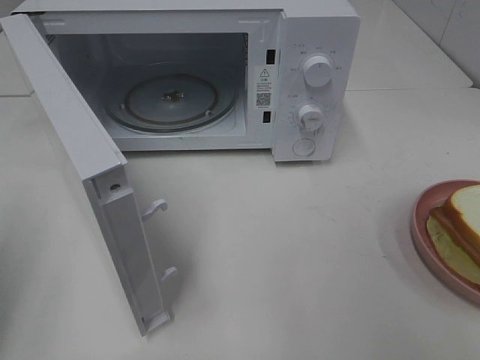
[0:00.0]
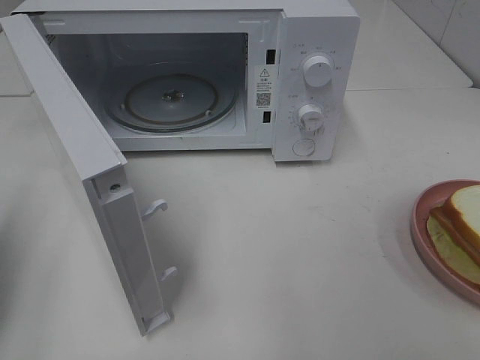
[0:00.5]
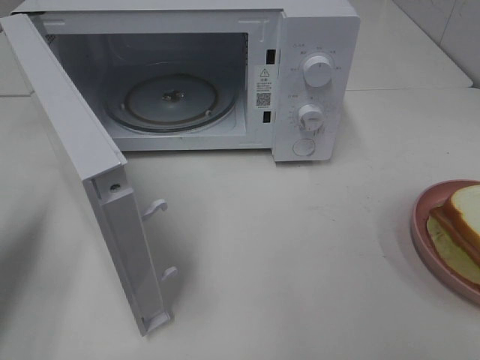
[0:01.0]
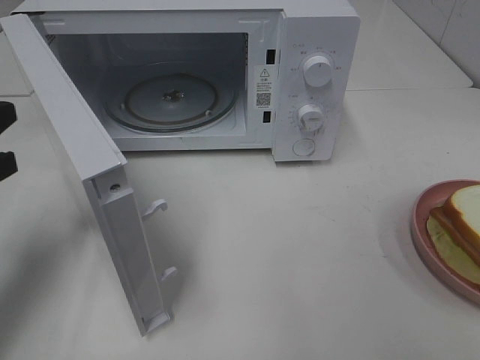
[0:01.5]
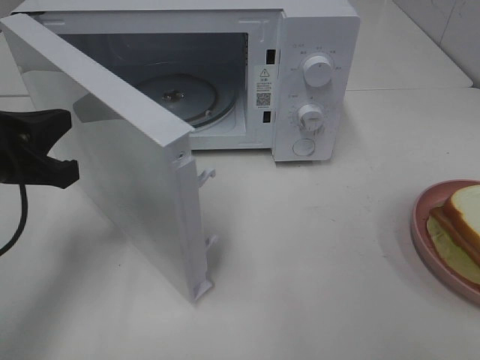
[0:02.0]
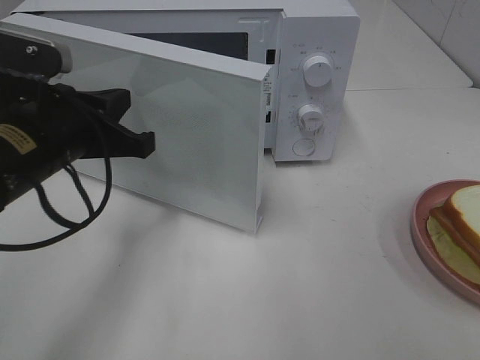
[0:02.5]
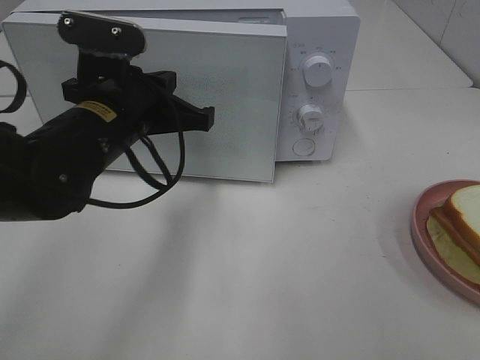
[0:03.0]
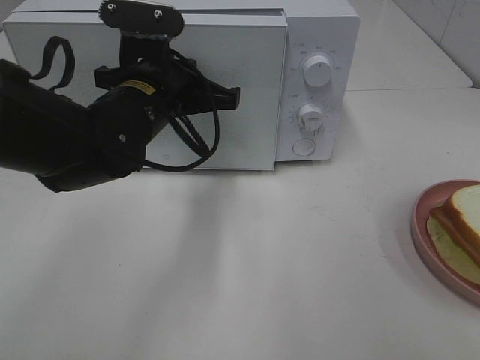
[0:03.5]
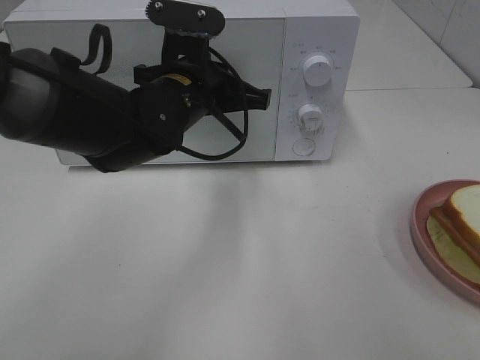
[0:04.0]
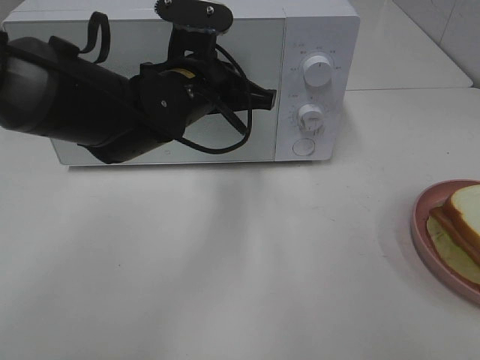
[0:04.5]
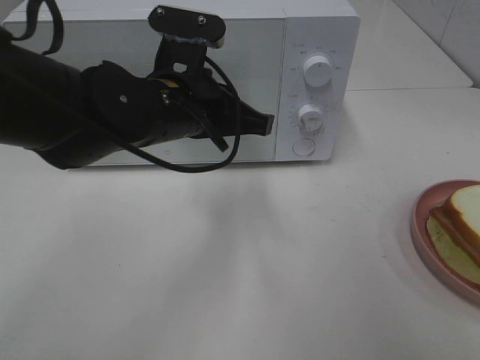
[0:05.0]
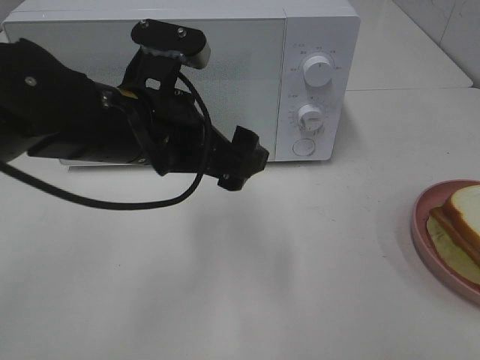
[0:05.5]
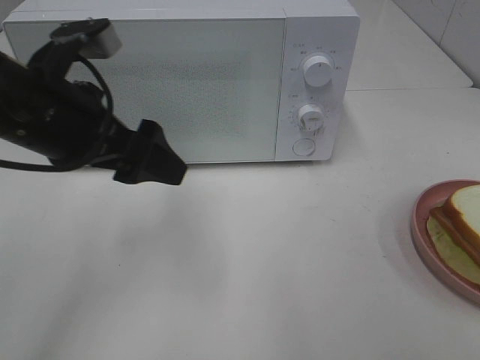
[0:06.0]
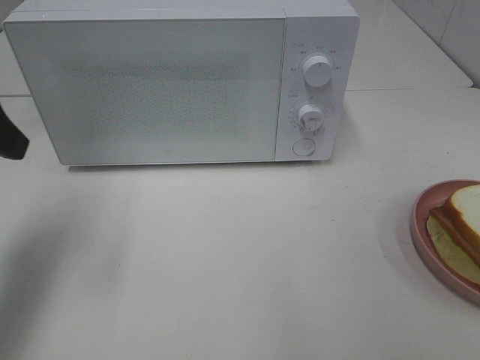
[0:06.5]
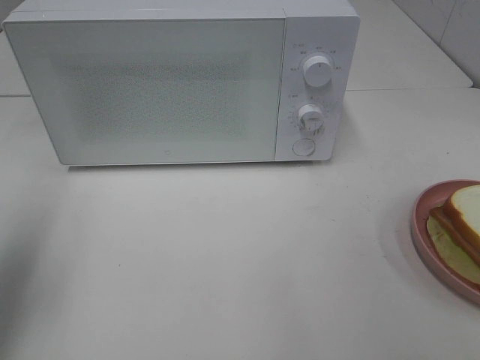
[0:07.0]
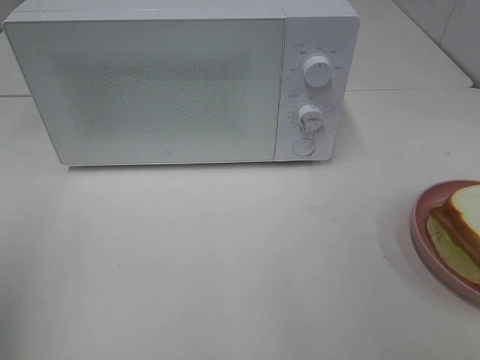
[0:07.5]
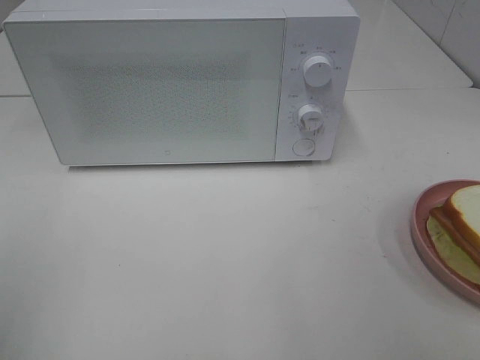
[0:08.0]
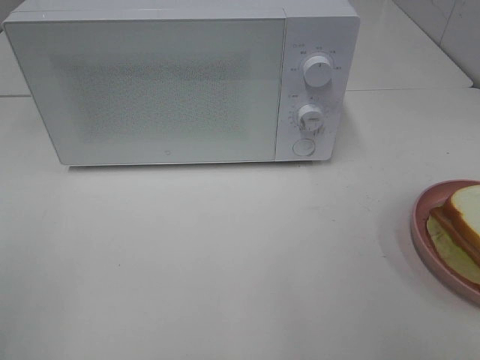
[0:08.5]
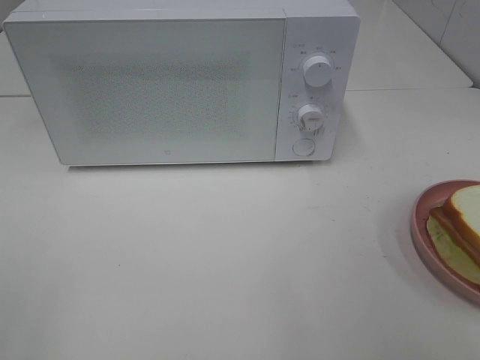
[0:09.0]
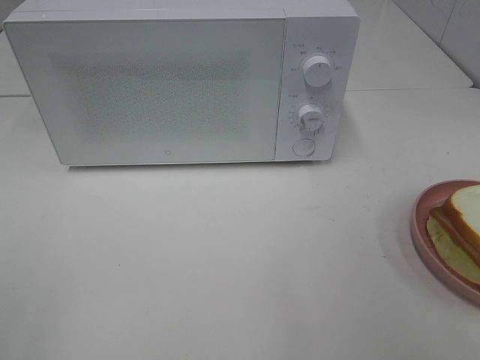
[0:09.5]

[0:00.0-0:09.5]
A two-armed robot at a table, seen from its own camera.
Task of the whole recording: Heat Sandwich.
0:00.0 to 0:02.0: The left gripper goes approximately 15 cm forward, to the right and downward.
0:02.0 to 0:04.0: The left gripper moves to the right and forward, approximately 20 cm.
0:04.0 to 0:05.5: The left gripper heads backward, covering about 10 cm, and opens up.
0:05.5 to 0:07.5: The left gripper moves to the left and backward, about 30 cm.
